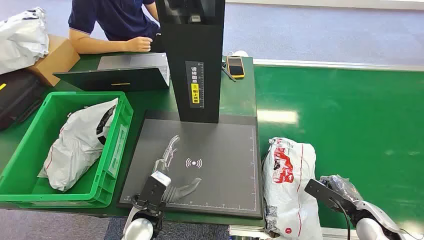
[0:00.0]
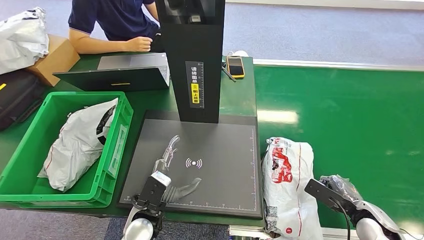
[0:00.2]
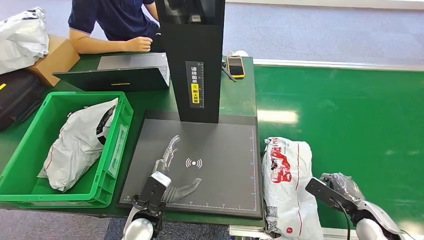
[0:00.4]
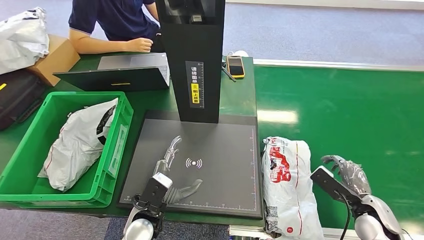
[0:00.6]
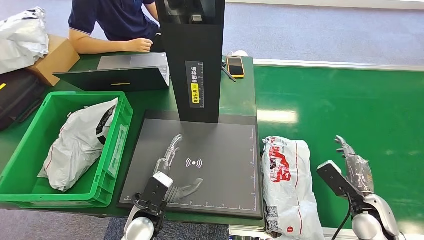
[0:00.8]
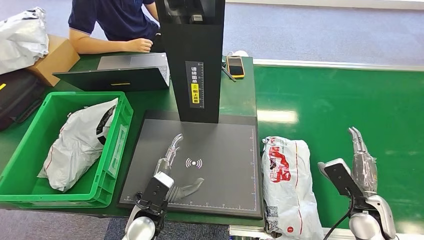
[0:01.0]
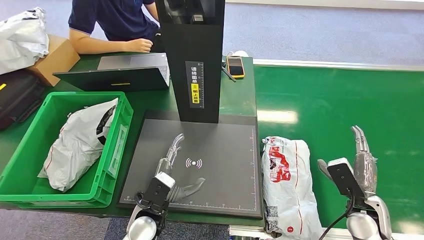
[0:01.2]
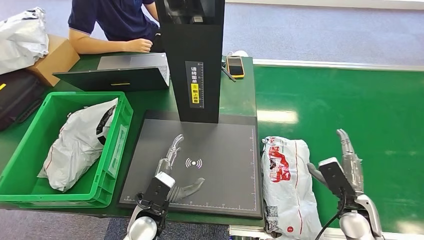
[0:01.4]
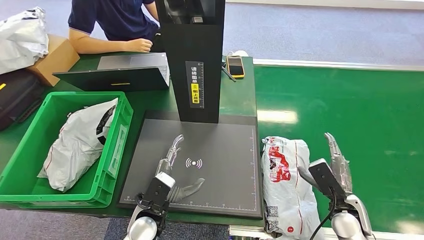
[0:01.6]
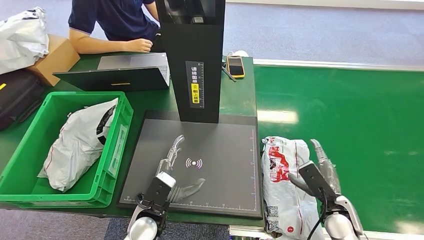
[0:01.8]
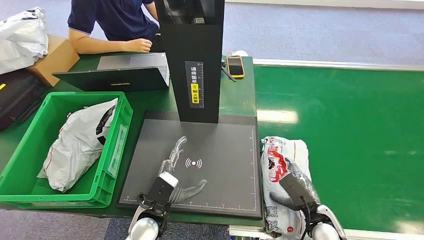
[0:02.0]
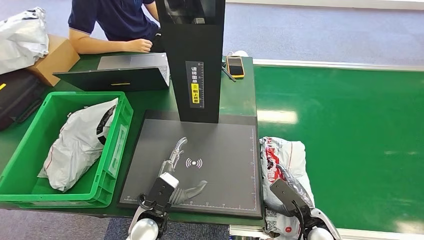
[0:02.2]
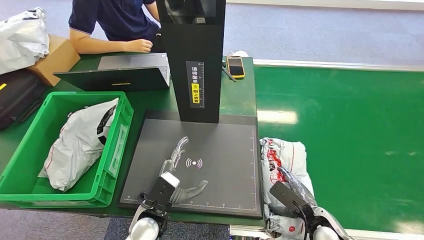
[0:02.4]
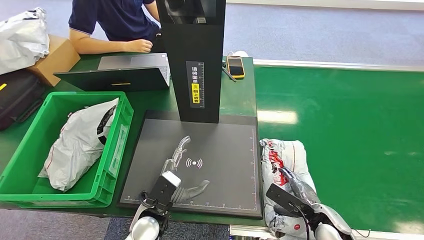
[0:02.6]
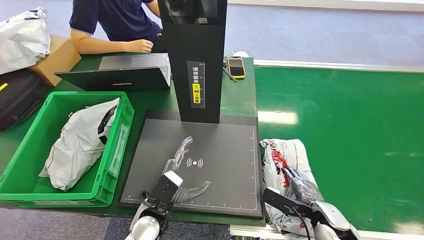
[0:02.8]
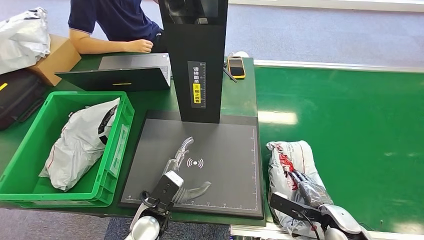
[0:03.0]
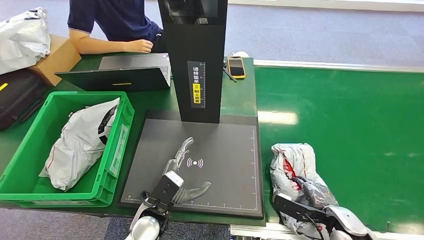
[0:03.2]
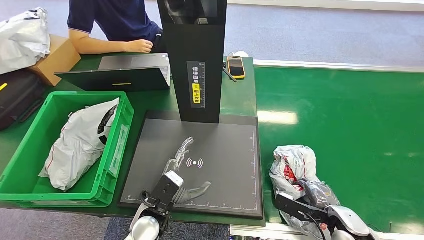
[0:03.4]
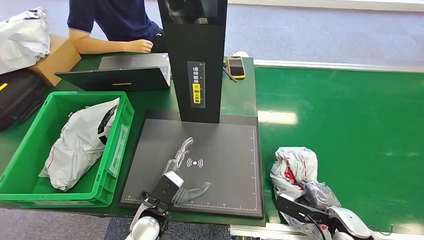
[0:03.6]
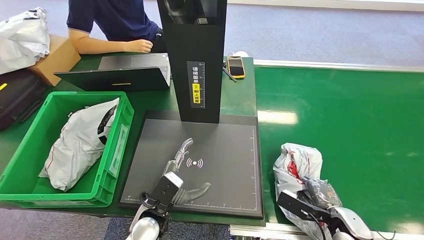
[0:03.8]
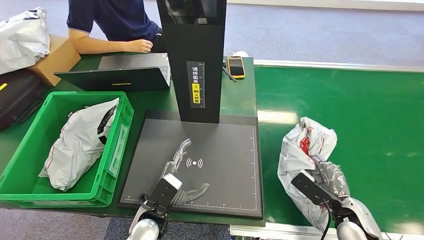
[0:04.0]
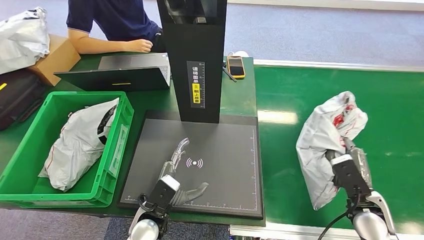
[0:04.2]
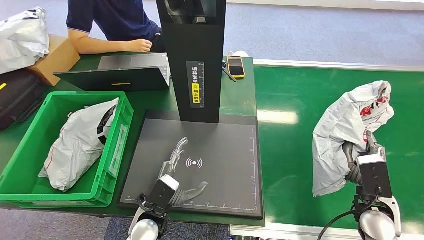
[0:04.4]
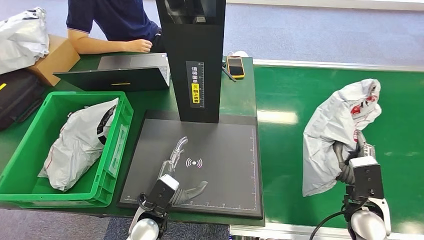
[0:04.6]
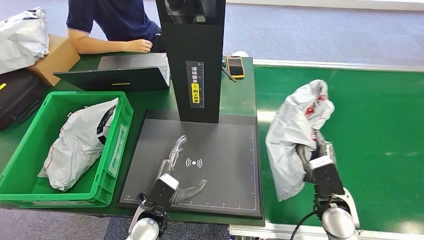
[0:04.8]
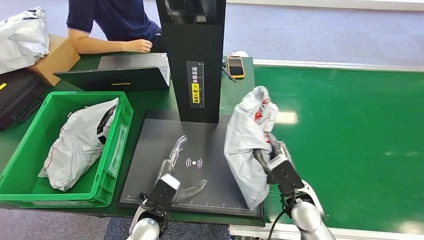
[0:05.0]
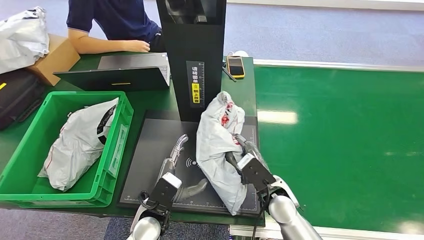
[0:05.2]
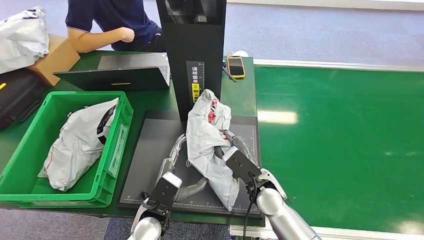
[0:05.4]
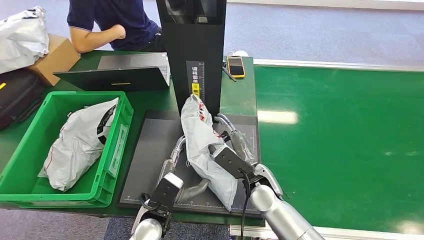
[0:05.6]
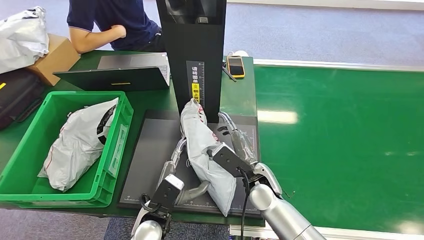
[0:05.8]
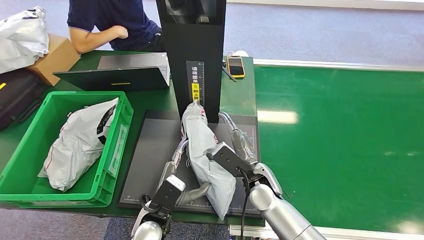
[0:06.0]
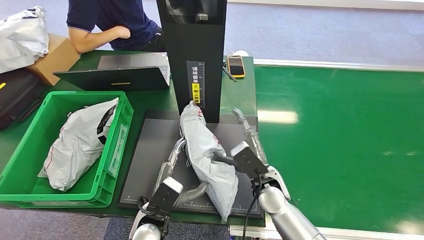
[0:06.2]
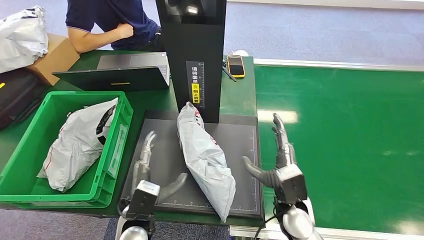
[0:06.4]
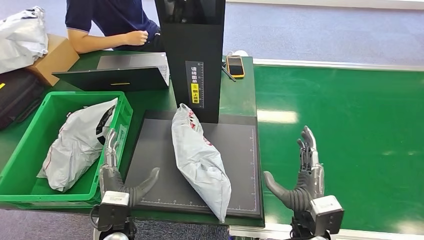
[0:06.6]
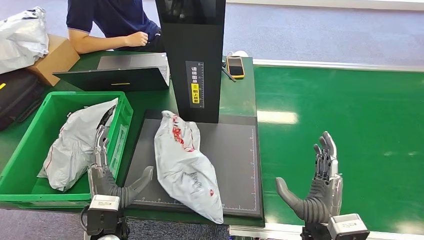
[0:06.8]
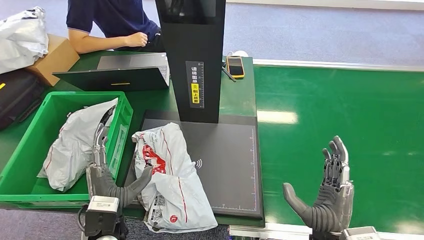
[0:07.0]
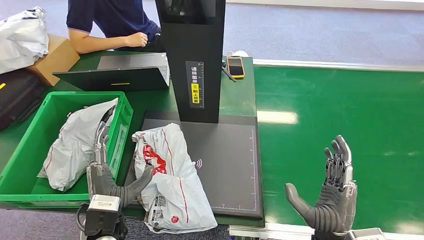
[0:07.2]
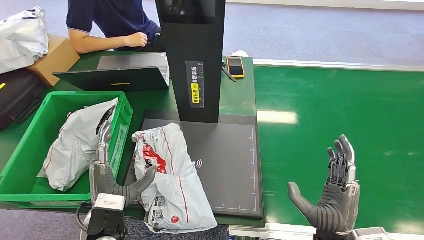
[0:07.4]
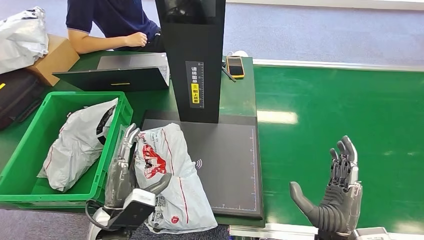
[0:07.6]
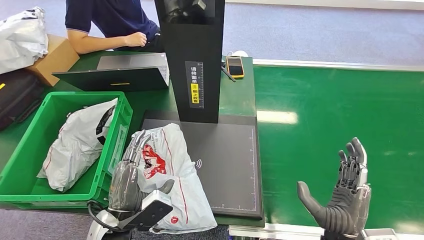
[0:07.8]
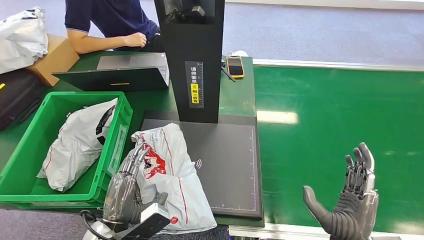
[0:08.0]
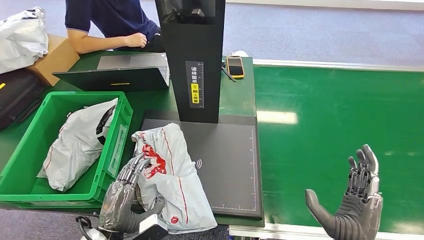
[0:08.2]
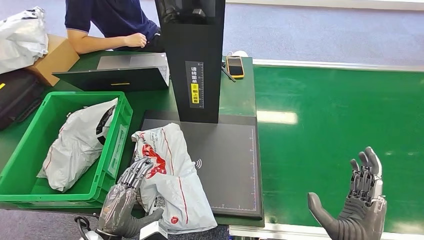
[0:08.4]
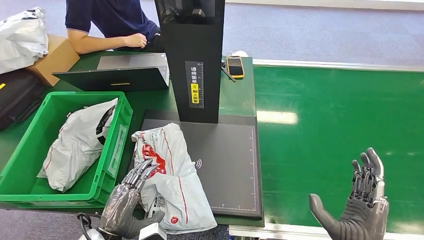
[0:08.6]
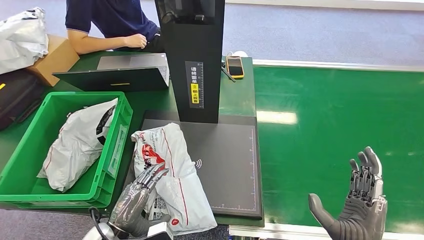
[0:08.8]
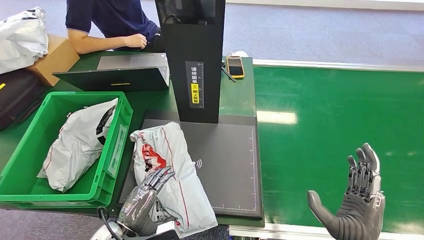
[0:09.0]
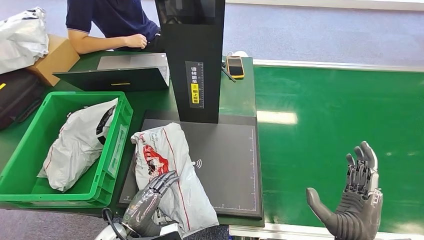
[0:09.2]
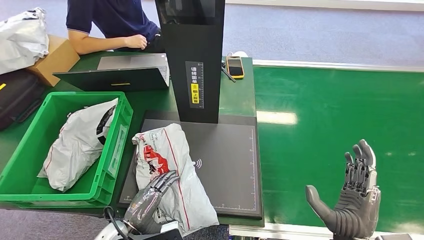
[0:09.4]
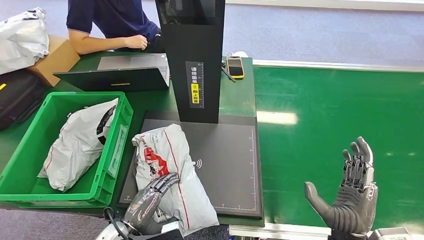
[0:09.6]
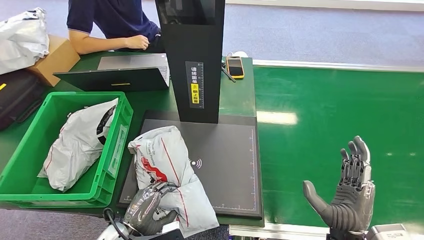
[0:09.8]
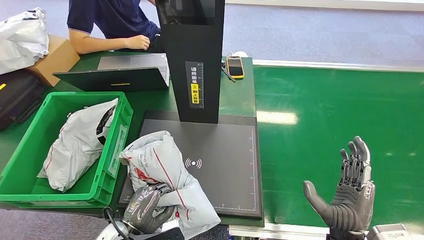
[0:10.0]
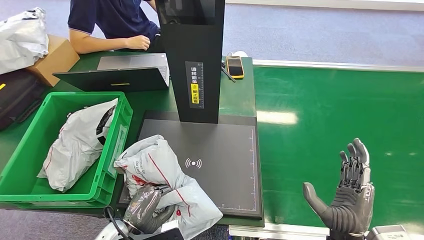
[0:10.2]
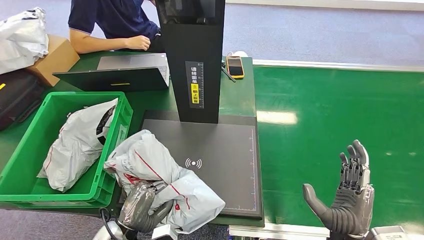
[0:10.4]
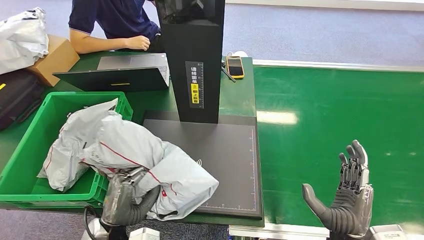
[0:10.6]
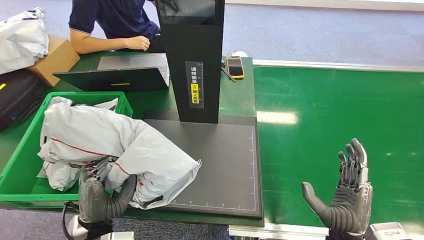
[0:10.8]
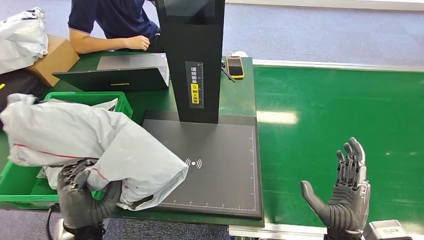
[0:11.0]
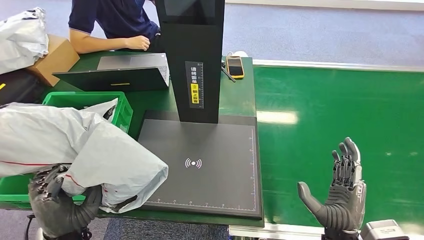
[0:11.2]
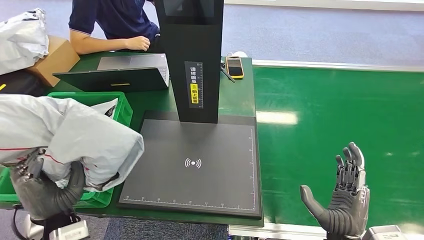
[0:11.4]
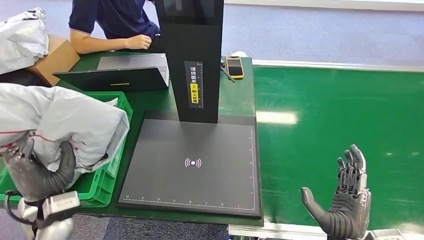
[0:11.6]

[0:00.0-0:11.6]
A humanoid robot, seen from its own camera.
Step, 0:00.0 to 0:04.6: Pick up the package from the conveyor belt.
Step, 0:04.8 to 0:07.2: Place the package onto the inbound machine.
Step, 0:07.4 to 0:11.2: Pick up the package from the inbound machine.
0:02.8 to 0:04.4: The right hand goes approximately 10 cm upward.
0:07.2 to 0:08.8: The left hand ends up about 5 cm from where it was.
0:08.8 to 0:10.2: The hands move only a little.

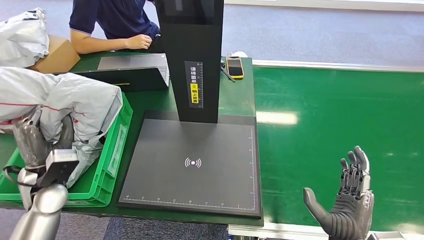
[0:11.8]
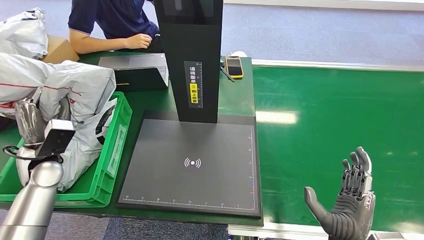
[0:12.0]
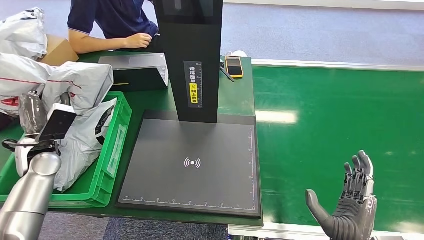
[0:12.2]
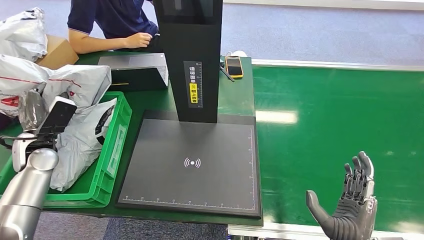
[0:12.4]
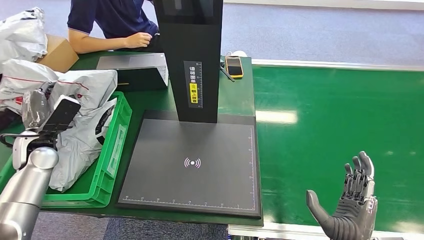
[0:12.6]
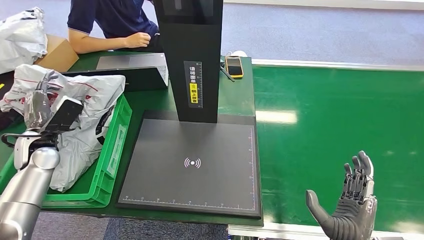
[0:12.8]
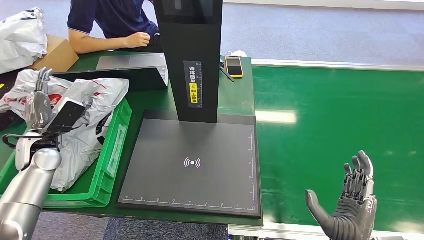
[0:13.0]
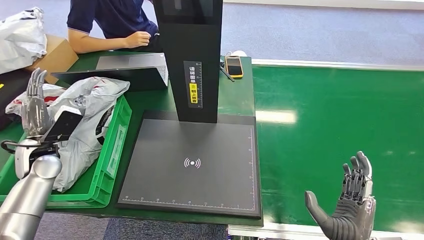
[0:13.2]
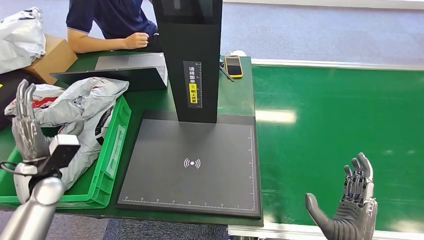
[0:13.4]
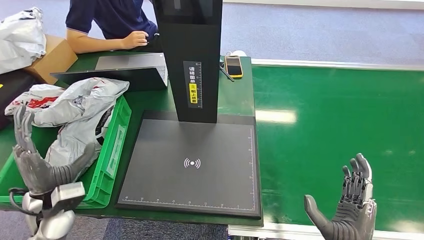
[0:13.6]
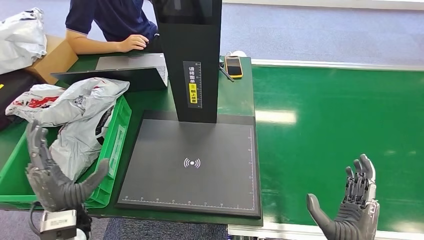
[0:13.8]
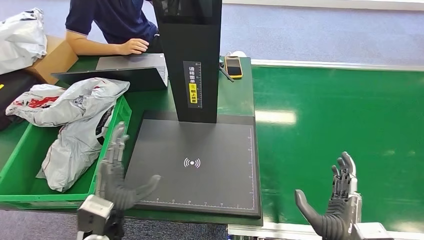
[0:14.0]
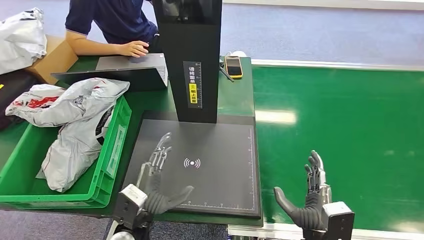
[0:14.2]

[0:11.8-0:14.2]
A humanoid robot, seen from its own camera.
Step, 0:11.8 to 0:14.0: Place the package into the parcel locker.
0:11.8 to 0:13.0: The left hand travels forward and to the left by roughly 10 cm.
0:13.0 to 0:14.2: The left hand goes some 35 cm to the right and backward.
